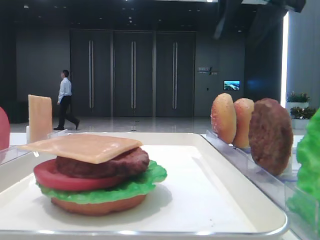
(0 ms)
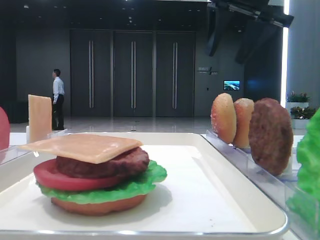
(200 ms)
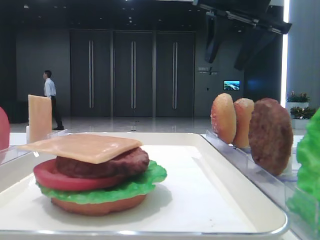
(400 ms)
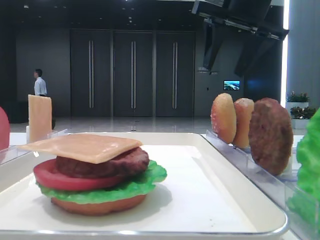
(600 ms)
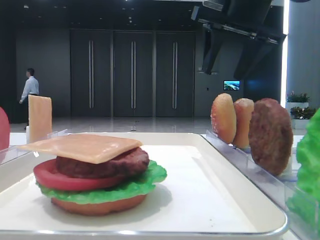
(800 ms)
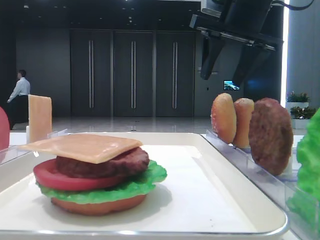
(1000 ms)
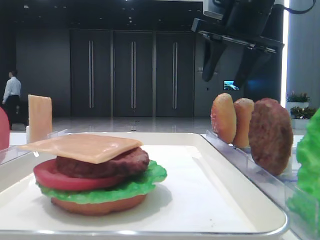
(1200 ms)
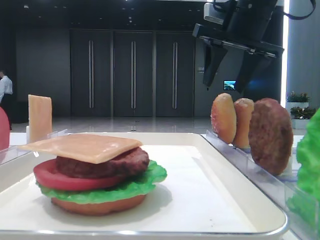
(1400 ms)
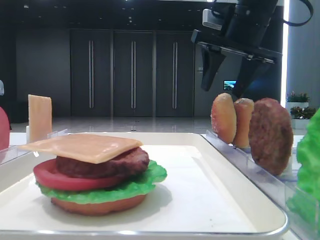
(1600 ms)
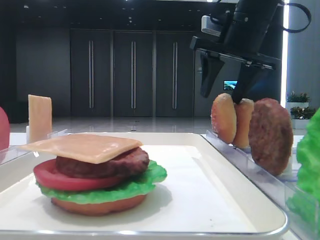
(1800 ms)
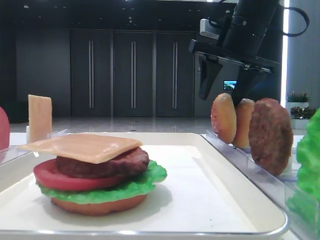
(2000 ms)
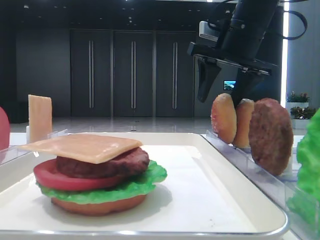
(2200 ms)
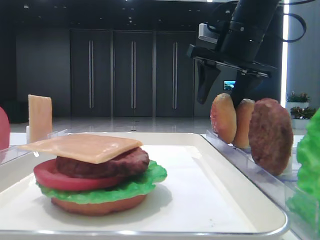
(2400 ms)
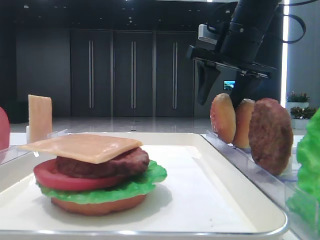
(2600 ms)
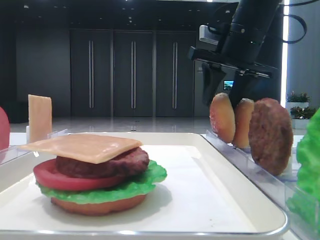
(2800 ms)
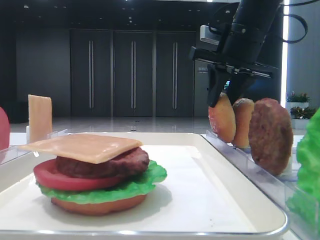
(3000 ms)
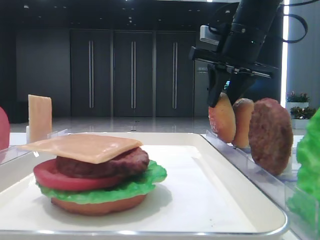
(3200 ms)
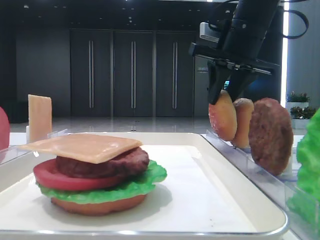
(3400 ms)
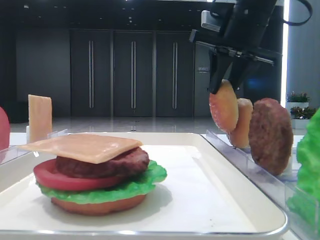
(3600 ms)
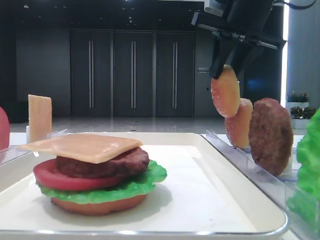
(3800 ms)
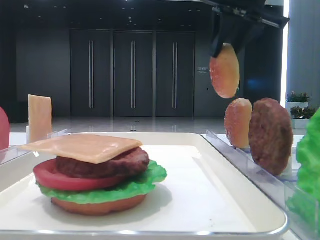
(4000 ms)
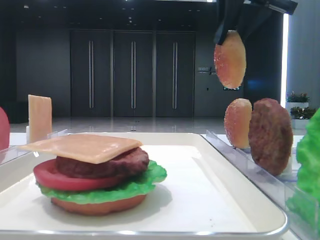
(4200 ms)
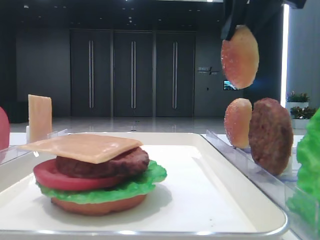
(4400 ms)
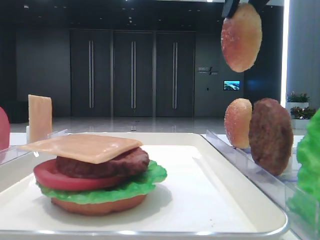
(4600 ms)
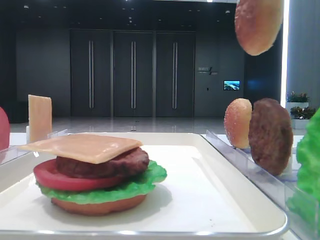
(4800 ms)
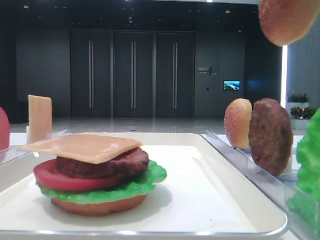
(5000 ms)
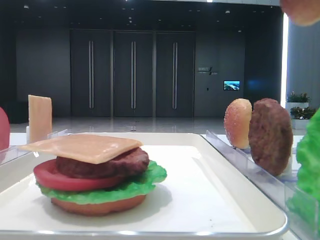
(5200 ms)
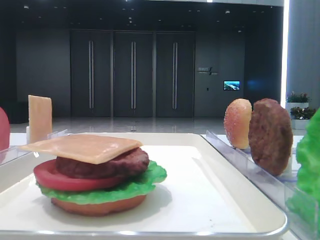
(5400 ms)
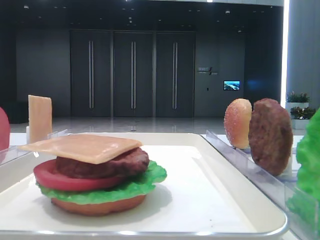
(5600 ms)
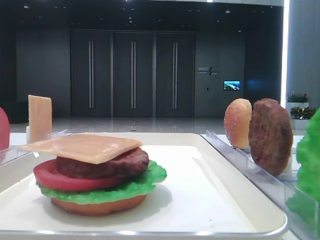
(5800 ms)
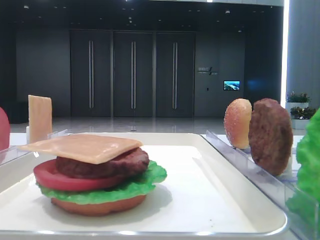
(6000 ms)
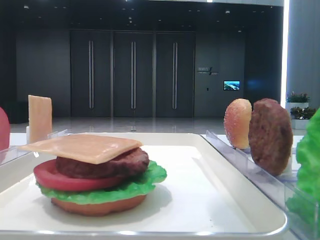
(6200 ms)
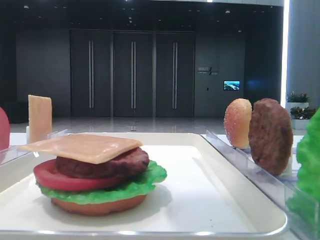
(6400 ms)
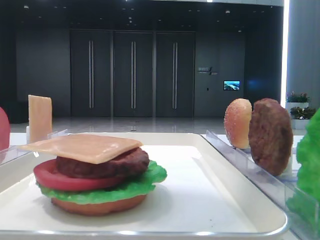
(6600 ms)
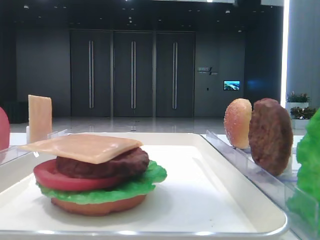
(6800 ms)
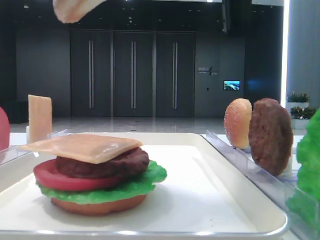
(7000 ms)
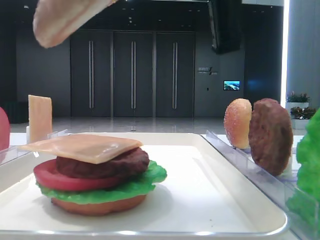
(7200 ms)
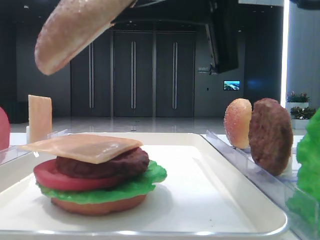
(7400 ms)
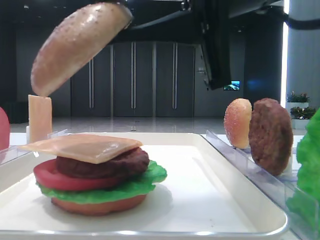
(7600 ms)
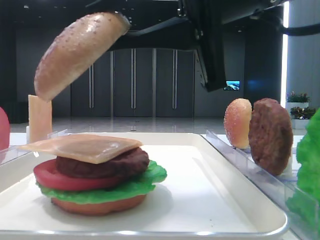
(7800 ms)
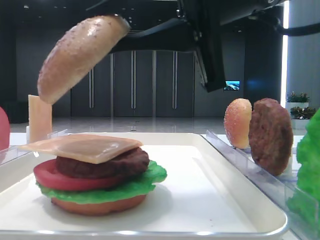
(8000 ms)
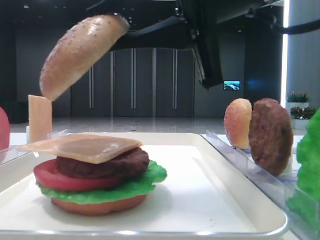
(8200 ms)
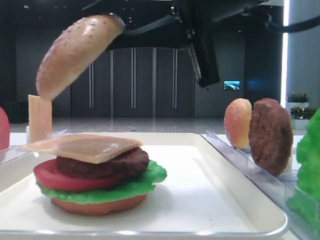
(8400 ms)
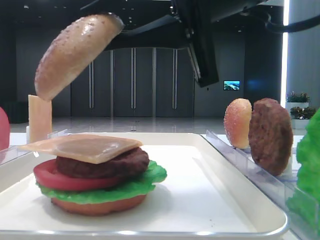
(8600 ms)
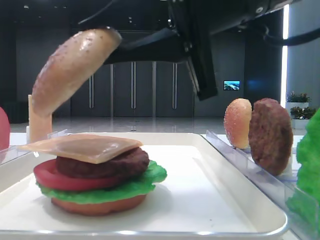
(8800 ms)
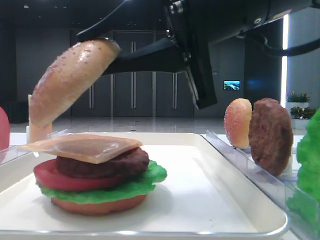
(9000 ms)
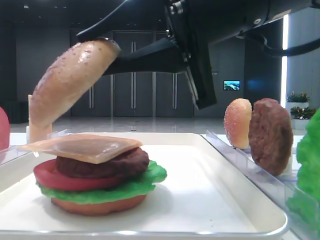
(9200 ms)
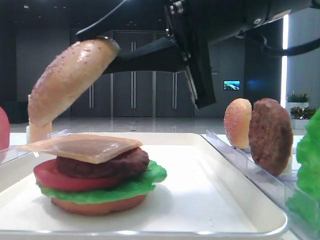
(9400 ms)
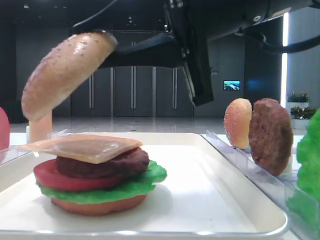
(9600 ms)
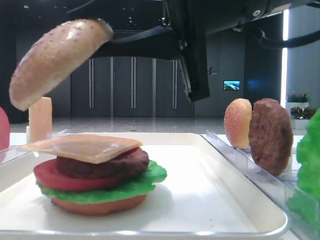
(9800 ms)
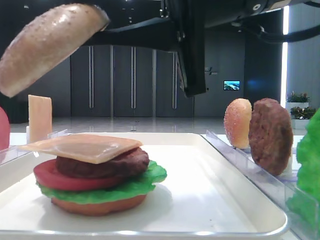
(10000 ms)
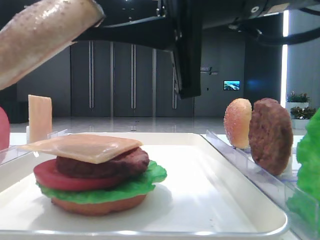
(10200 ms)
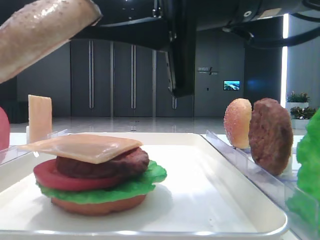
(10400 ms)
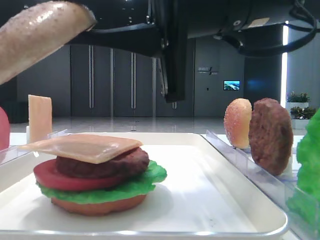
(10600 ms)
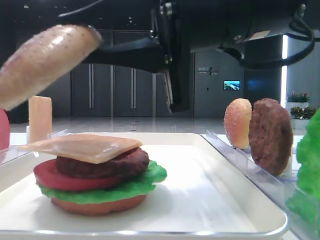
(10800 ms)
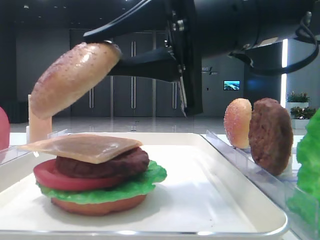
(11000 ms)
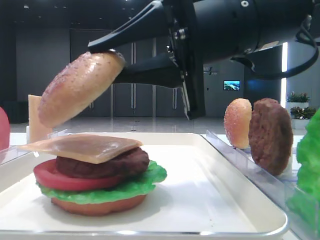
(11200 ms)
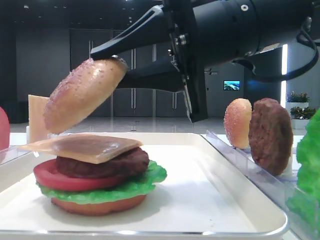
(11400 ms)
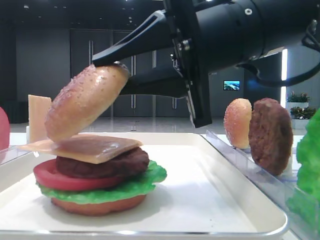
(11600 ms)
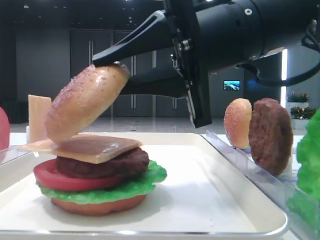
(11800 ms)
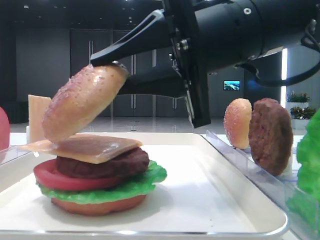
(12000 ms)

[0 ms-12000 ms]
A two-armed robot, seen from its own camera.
Step, 0 ms to 3000 ms: Pick up the top bread slice with the right hand.
0 ms to 1600 ms: The right gripper goes roughly 5 cm downward.
1600 ms to 3000 ms: The right gripper closes up.
3000 ms to 4400 ms: The right gripper moves upward and backward, approximately 10 cm.
4400 ms to 6000 ms: The right gripper travels backward by approximately 20 cm.
6000 ms to 7600 ms: The right gripper is displaced downward, to the left and forward by about 20 cm.
7600 ms to 9000 ms: The grippers move only a little.

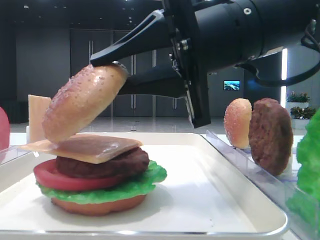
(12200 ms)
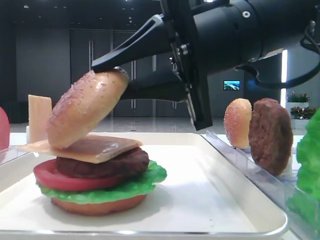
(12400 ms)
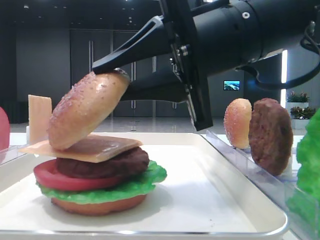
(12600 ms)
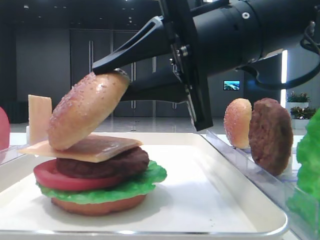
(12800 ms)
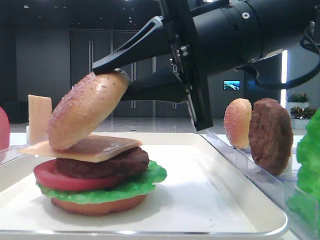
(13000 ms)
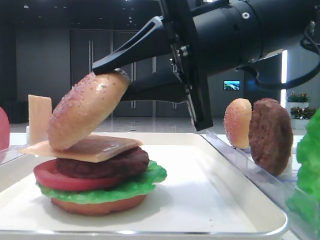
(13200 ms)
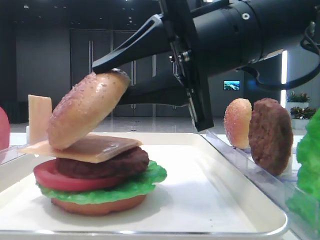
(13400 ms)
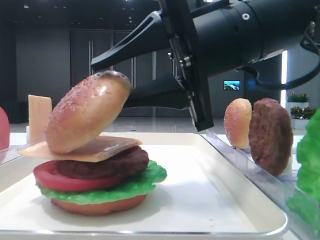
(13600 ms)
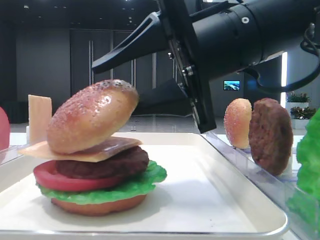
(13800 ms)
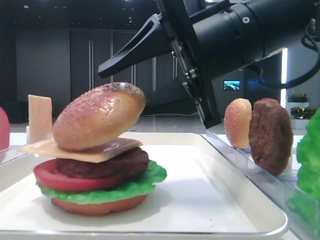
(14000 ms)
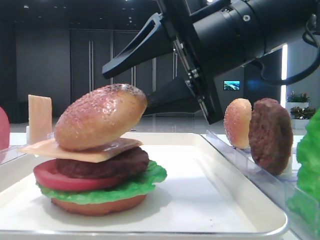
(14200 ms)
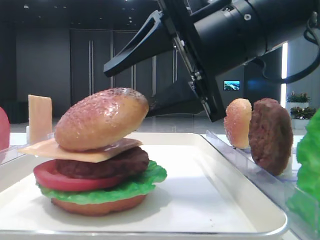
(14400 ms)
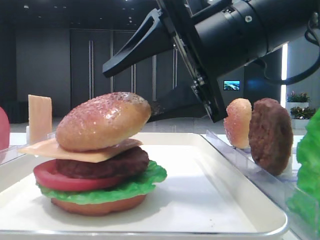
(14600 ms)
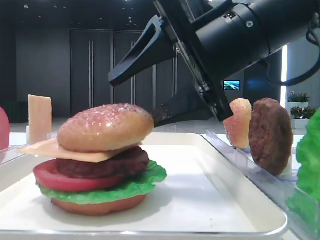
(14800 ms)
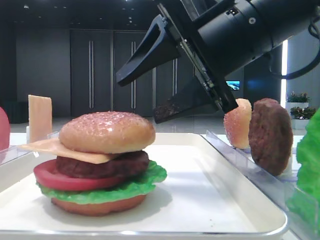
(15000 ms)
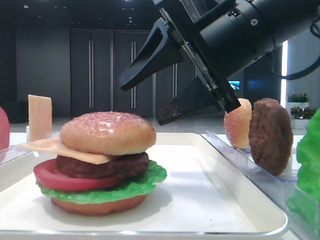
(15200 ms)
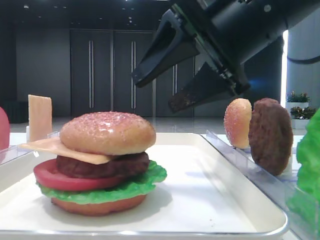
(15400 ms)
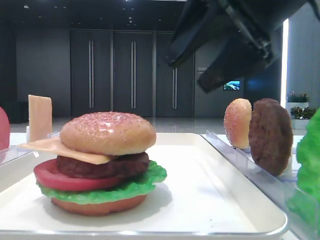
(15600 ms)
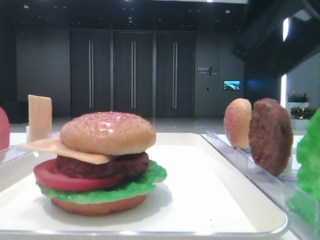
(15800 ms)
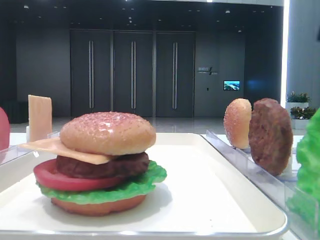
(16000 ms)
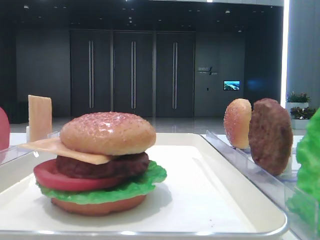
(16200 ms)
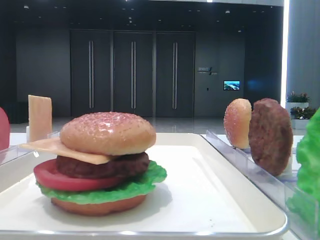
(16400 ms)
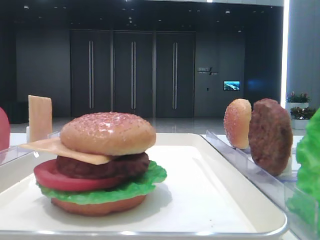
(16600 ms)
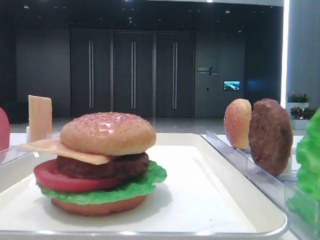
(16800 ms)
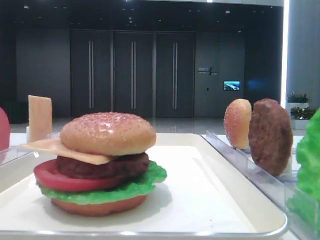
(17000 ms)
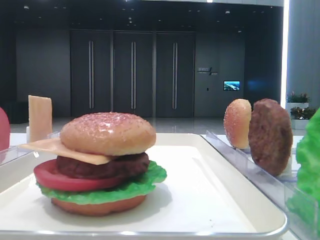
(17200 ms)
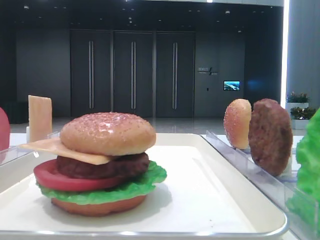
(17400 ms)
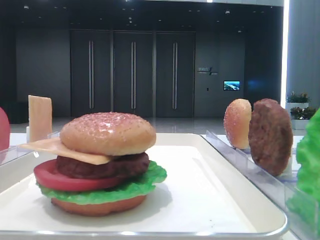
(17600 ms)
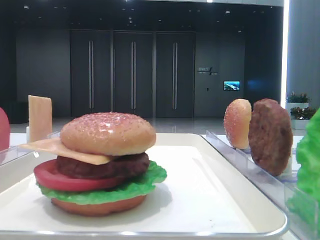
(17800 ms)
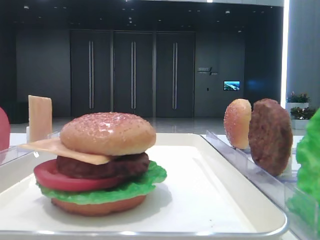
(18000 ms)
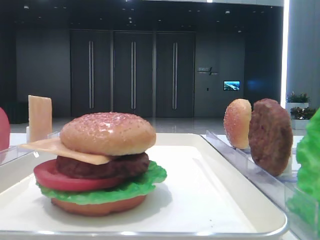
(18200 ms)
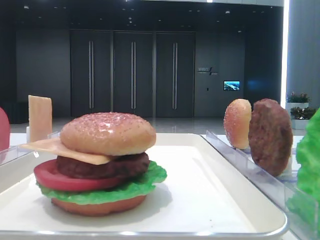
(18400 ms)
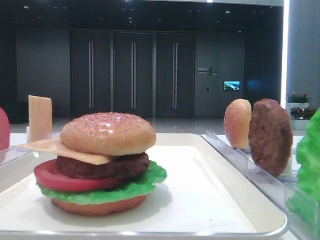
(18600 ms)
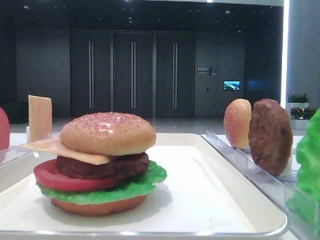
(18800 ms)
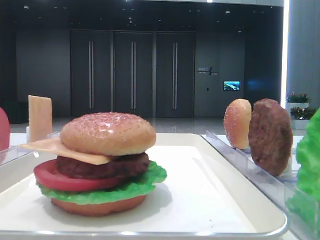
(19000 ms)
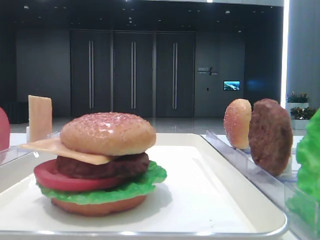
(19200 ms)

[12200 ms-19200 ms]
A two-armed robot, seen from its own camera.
Step, 12200 ms to 14800 ms: Place the top bread slice on the cheese with the right hand.
12200 ms to 13600 ms: Neither gripper changes place.
13600 ms to 15000 ms: The right gripper opens its fingers.
15000 ms to 16400 ms: The right gripper travels to the right, upward and backward by approximately 30 cm.
17800 ms to 19200 ms: Neither gripper changes place.

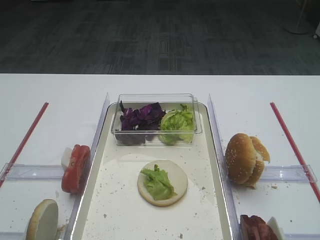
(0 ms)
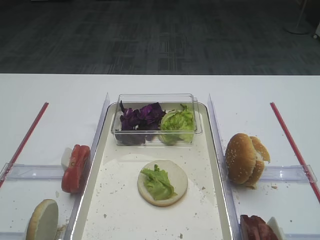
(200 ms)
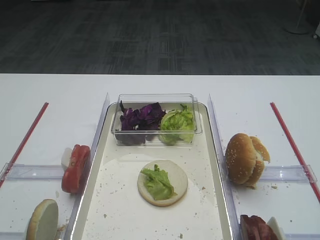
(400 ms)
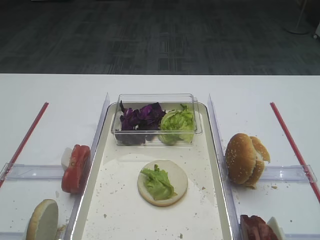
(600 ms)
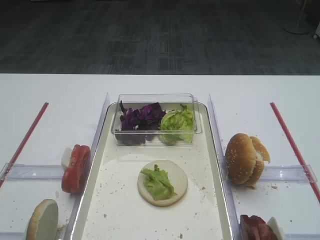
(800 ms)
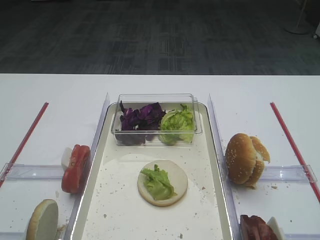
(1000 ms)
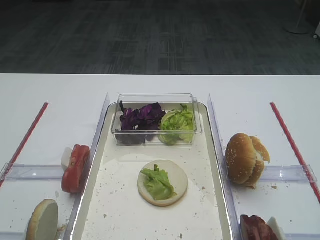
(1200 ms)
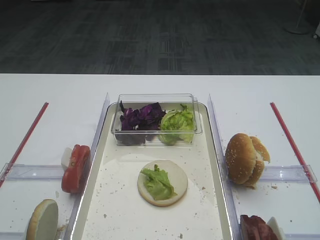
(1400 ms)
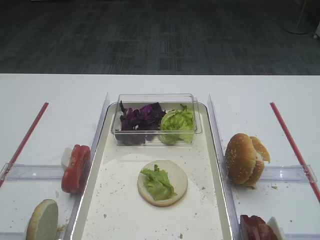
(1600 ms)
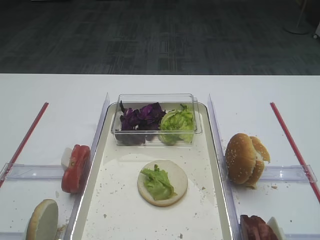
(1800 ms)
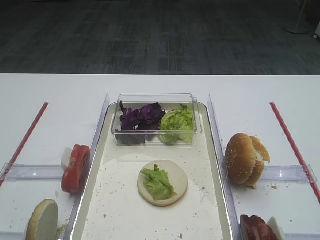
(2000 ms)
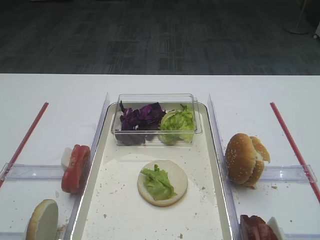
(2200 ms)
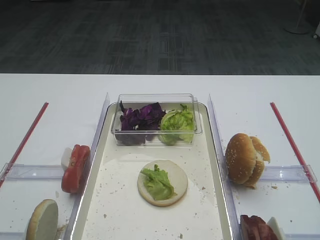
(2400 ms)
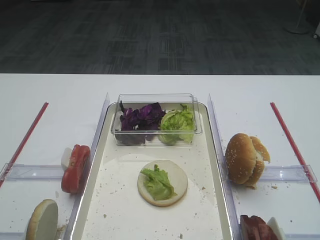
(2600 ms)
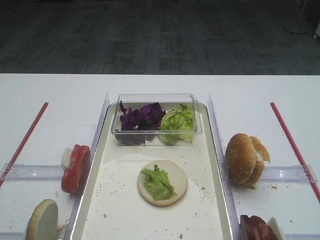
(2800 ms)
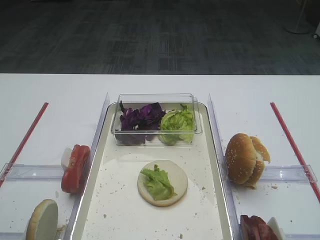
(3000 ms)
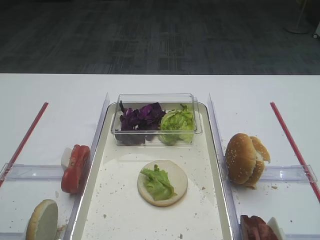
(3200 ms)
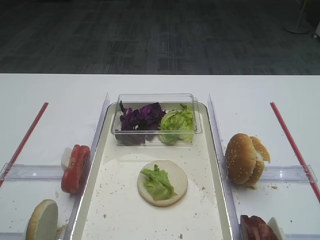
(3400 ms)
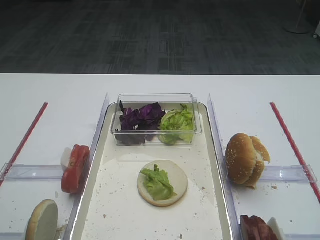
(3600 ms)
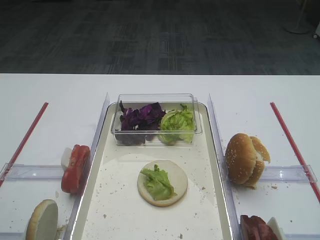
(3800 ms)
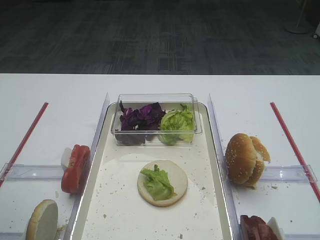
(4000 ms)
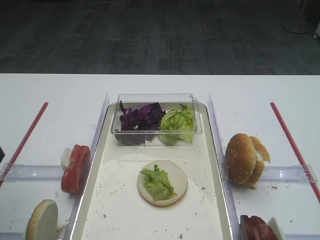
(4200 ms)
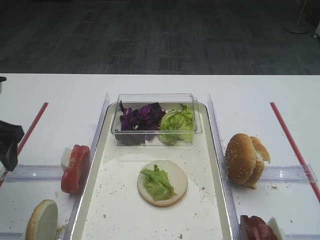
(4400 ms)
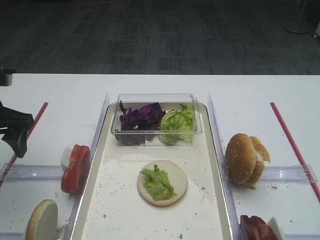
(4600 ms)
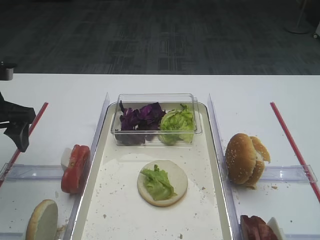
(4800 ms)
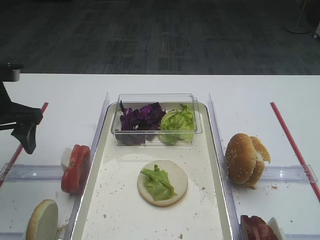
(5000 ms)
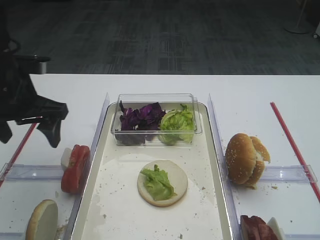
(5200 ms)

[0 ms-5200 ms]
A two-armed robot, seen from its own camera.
3400 ms to 5200 ms: The left gripper travels forward by approximately 20 cm.
